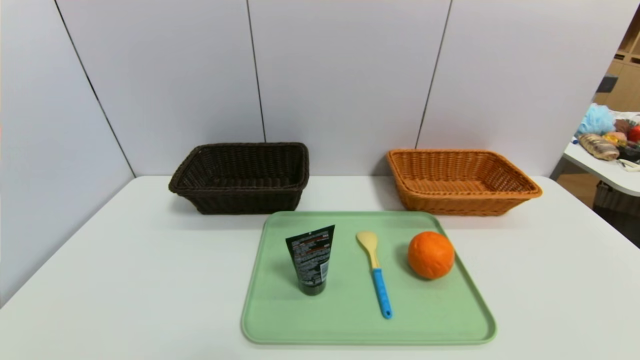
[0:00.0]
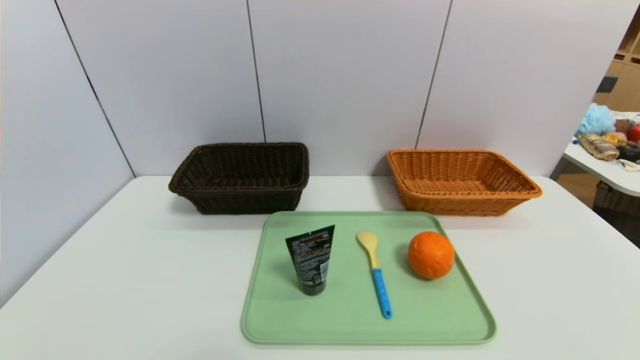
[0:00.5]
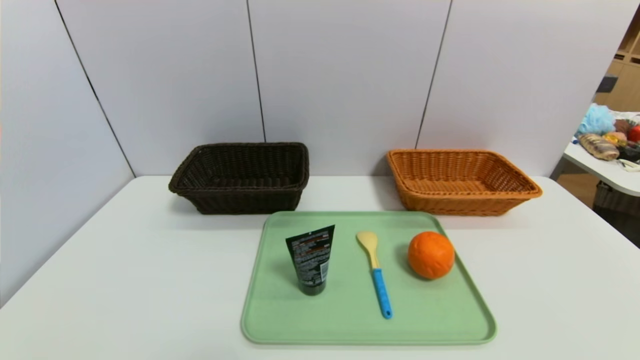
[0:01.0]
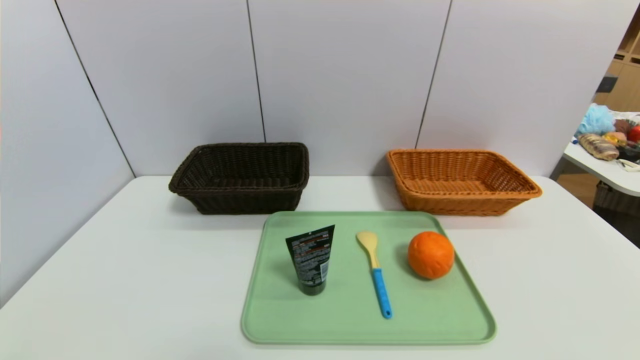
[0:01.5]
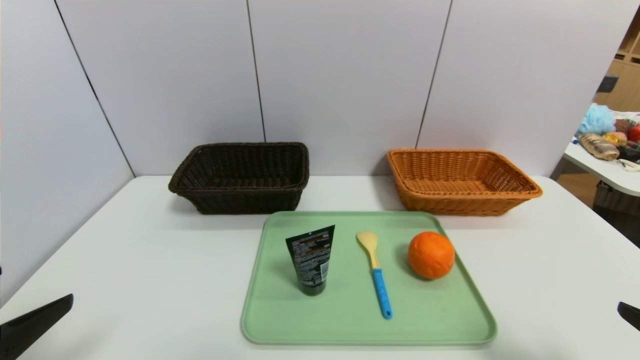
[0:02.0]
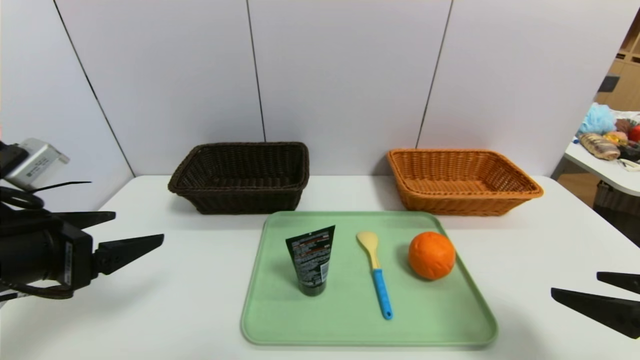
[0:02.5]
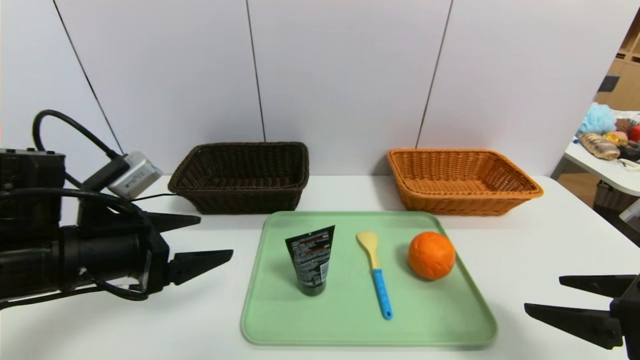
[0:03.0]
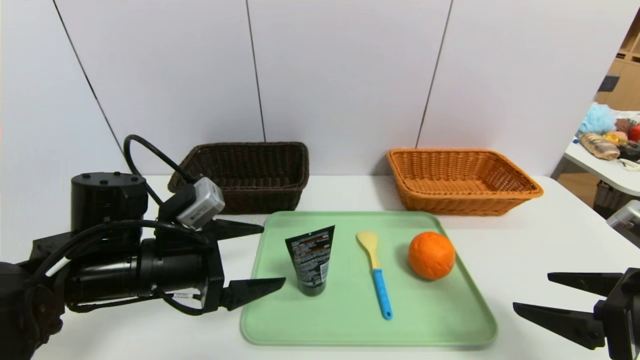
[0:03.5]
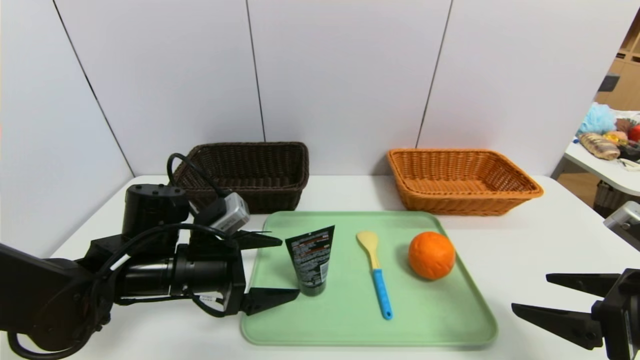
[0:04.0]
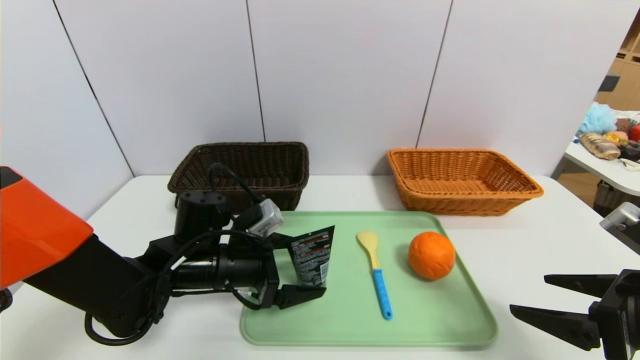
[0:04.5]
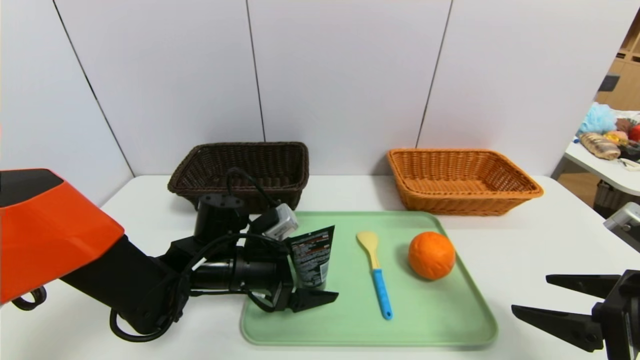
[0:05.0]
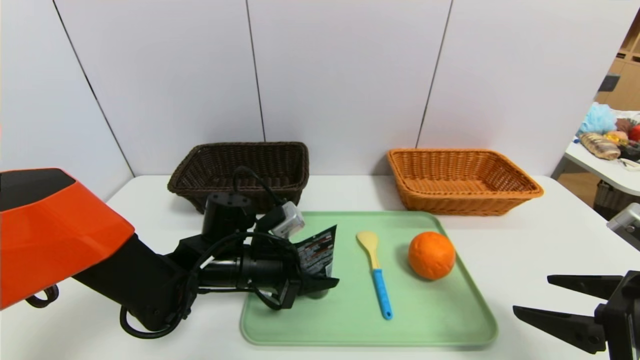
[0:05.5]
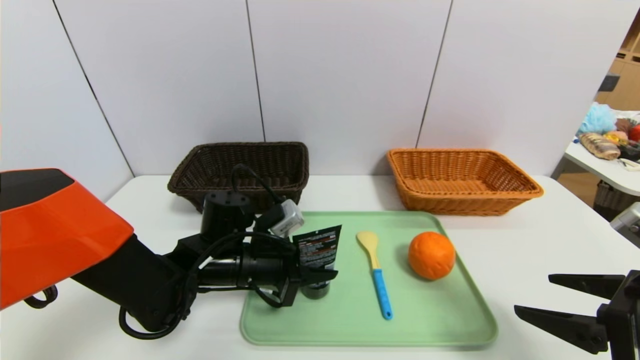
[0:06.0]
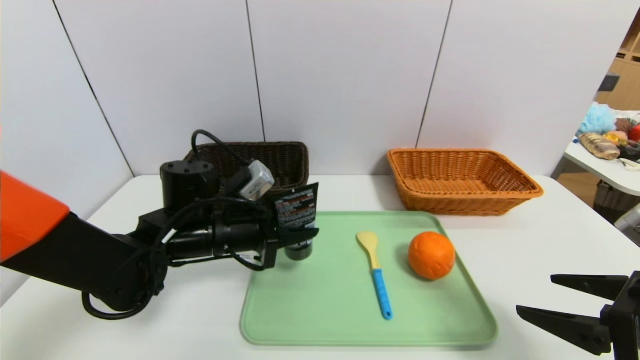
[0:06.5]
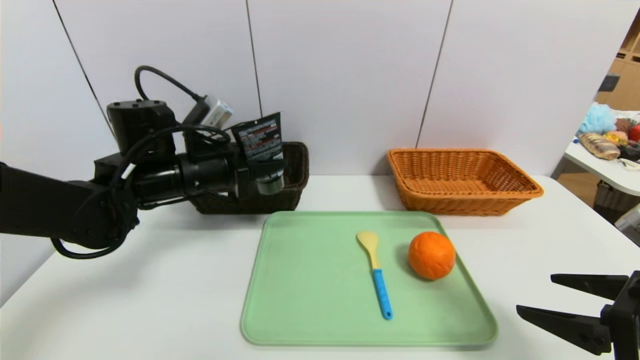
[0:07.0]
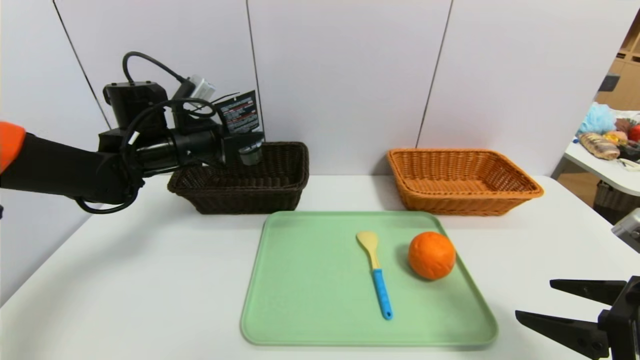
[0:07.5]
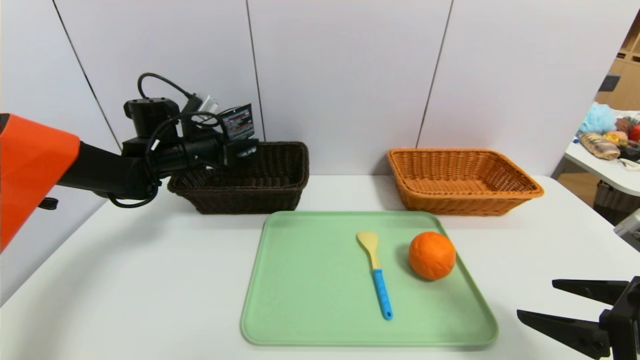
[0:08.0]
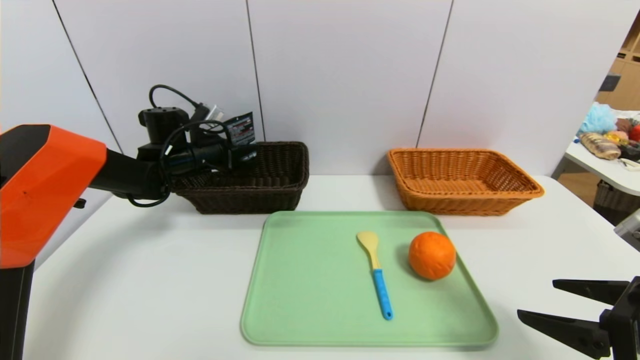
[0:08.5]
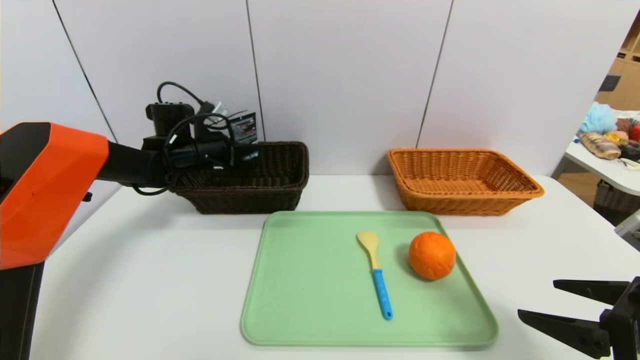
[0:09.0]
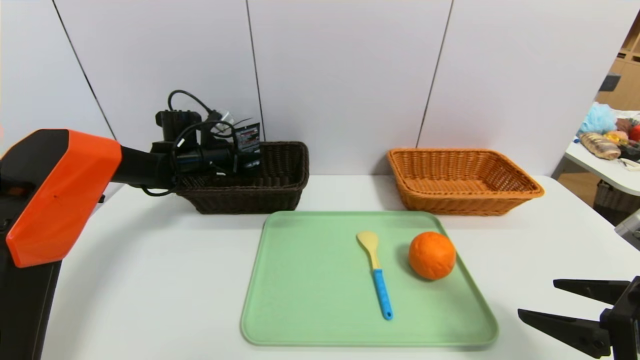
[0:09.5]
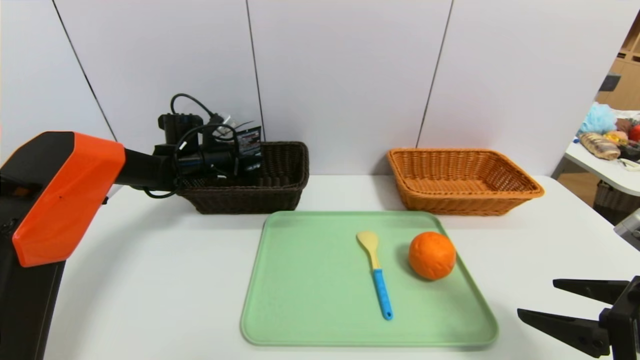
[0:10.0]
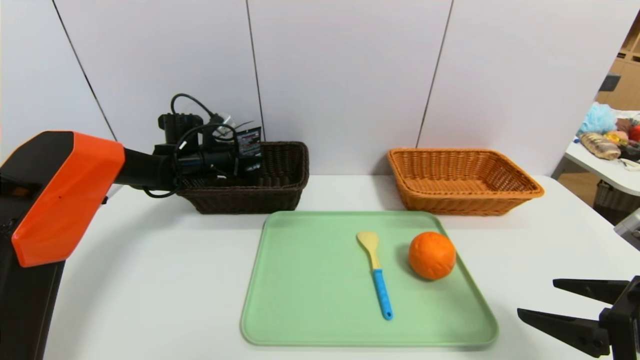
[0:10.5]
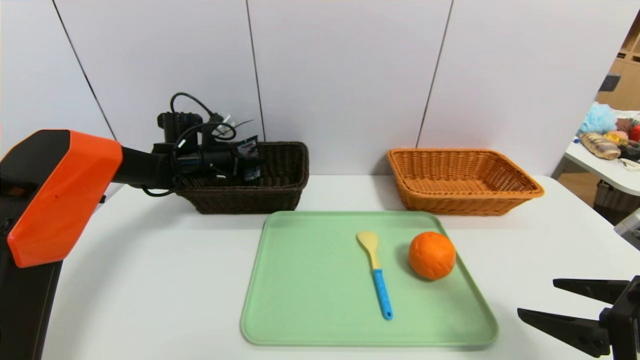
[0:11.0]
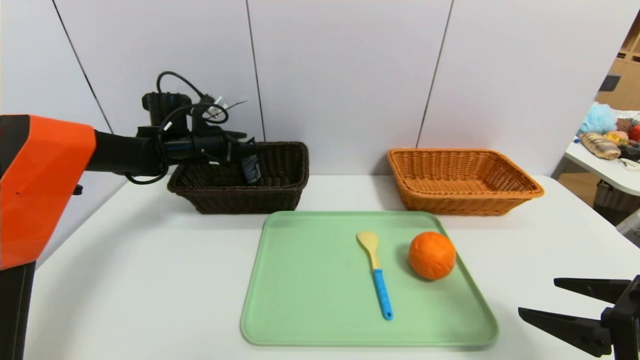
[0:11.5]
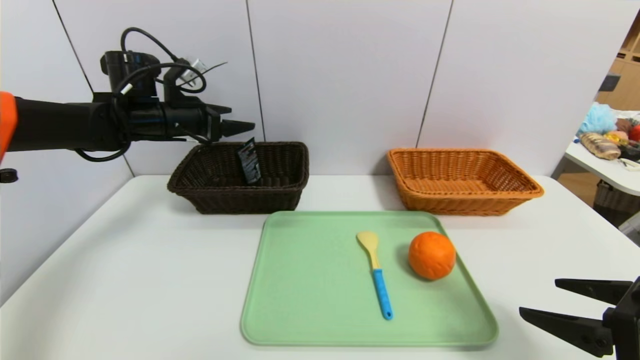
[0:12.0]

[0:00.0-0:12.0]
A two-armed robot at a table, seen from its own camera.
Task of the whole recording: place the food in the right basket with the right gripper, and place the non food items in the left basket with the left gripper.
Step, 0:00.0 to 0:11.0: Grasp the soft cleanser and put it in the left basket.
0:00.0 to 0:02.0: Both grippers move upward and forward, roughly 15 cm.
0:02.0 to 0:04.0: The right gripper is displaced forward by some 10 cm, while the left gripper heads forward, to the right and downward, covering some 25 cm.
0:04.0 to 0:06.0: The left gripper heads to the right, covering approximately 5 cm, and closes.
0:06.0 to 0:08.0: The left gripper goes about 20 cm forward, to the left and upward.
0:08.0 to 0:10.0: The left gripper moves forward, about 5 cm.
0:10.0 to 0:12.0: The left gripper goes roughly 15 cm upward and backward, and opens its fingers.

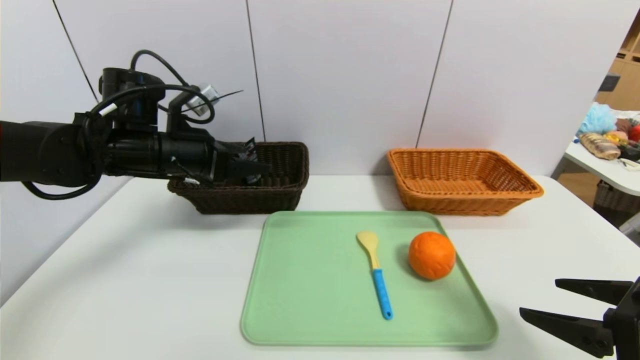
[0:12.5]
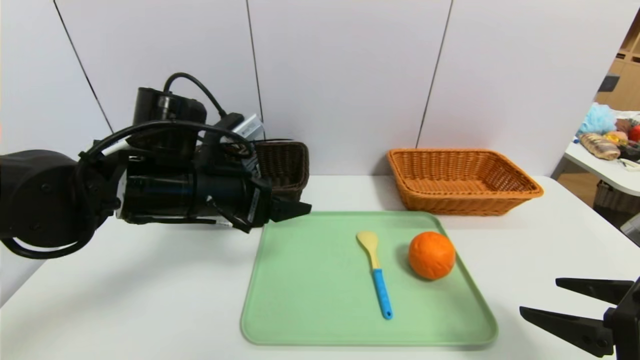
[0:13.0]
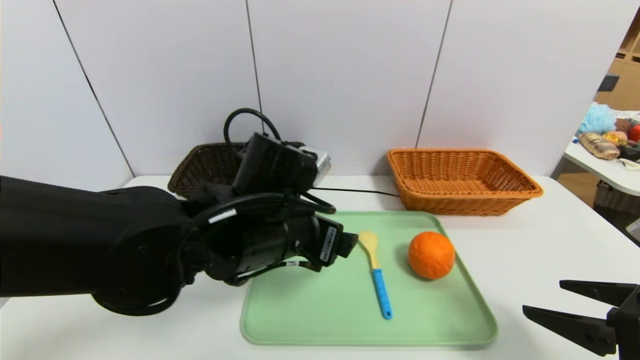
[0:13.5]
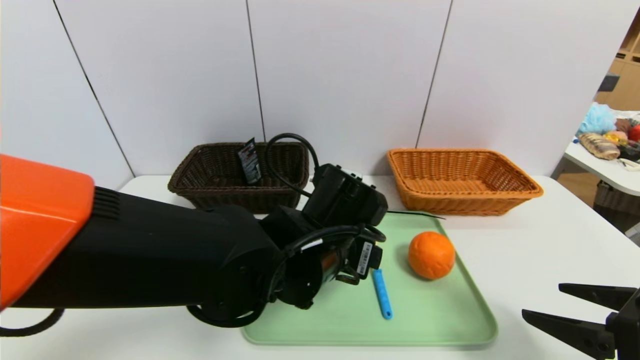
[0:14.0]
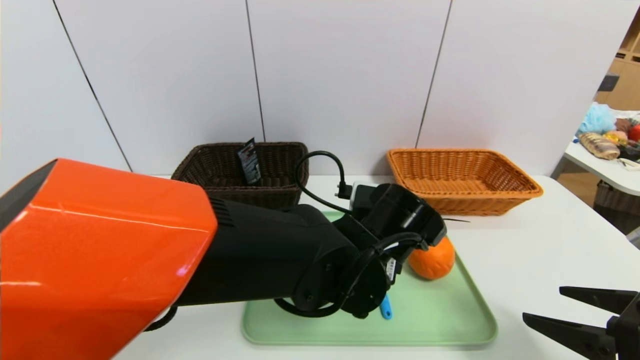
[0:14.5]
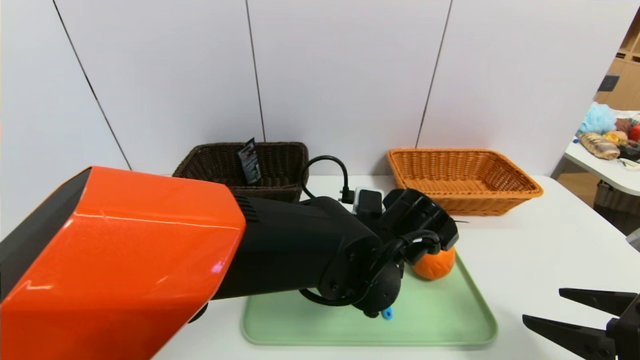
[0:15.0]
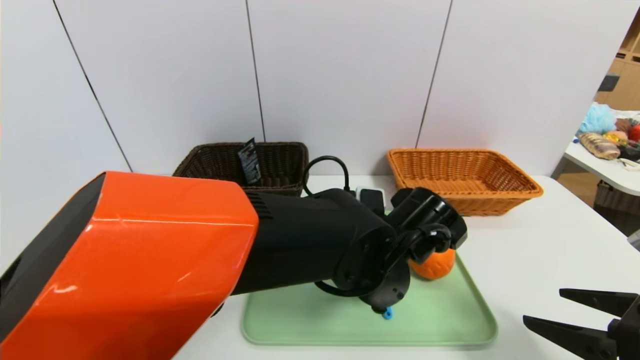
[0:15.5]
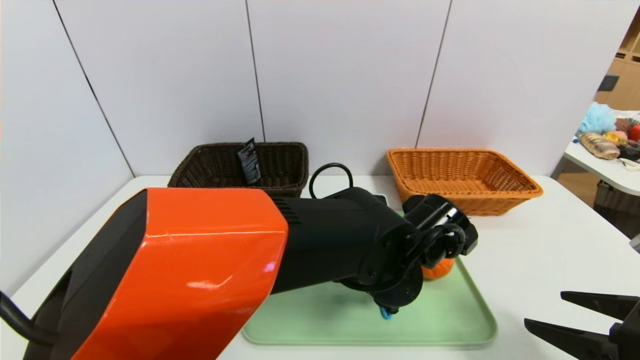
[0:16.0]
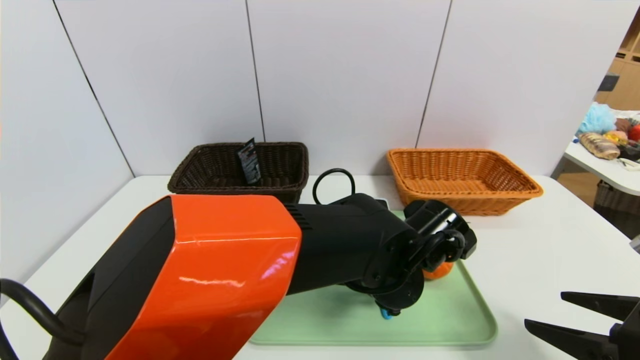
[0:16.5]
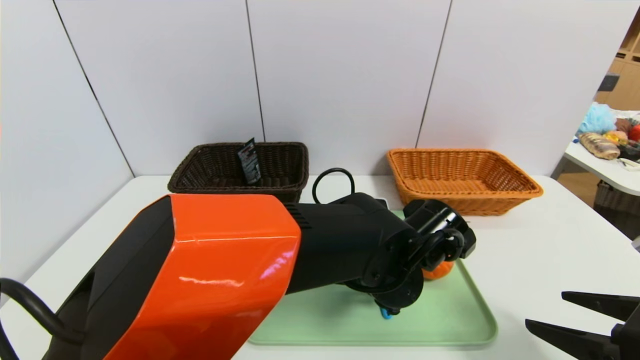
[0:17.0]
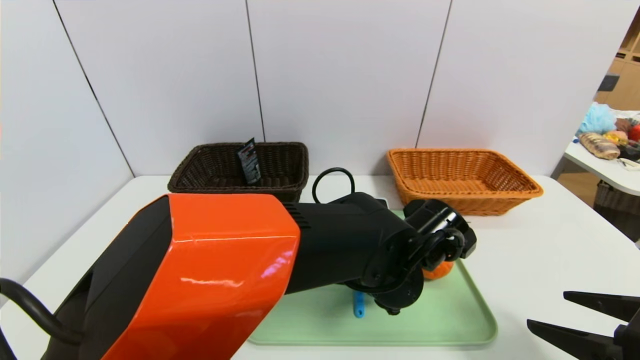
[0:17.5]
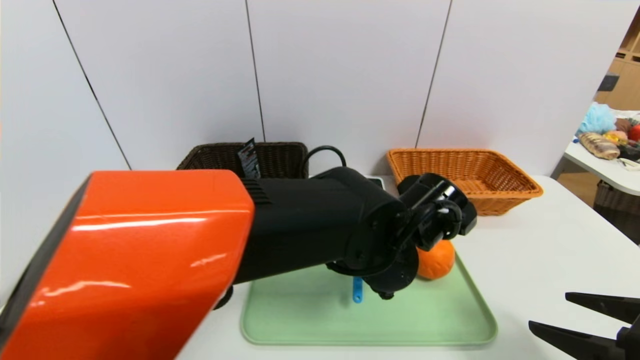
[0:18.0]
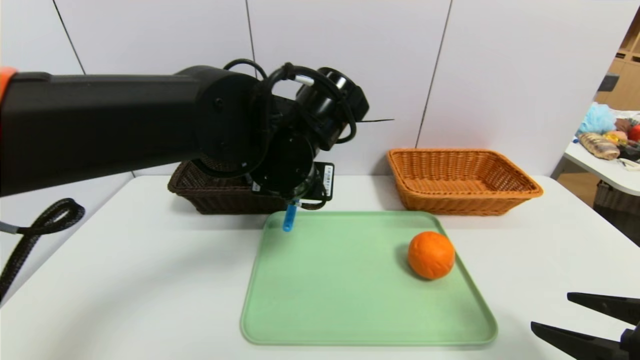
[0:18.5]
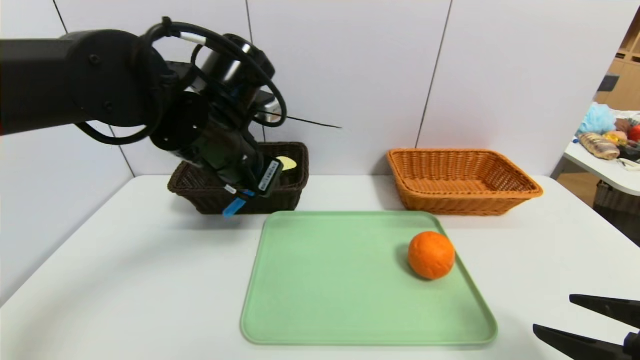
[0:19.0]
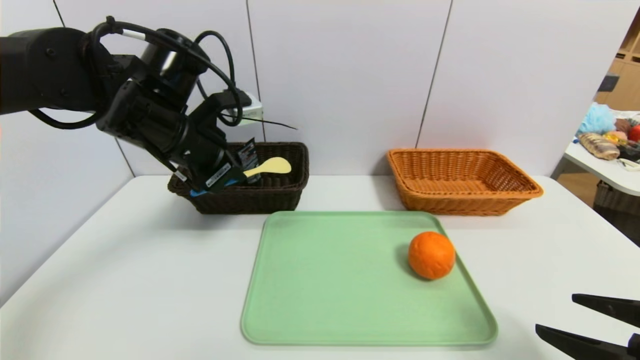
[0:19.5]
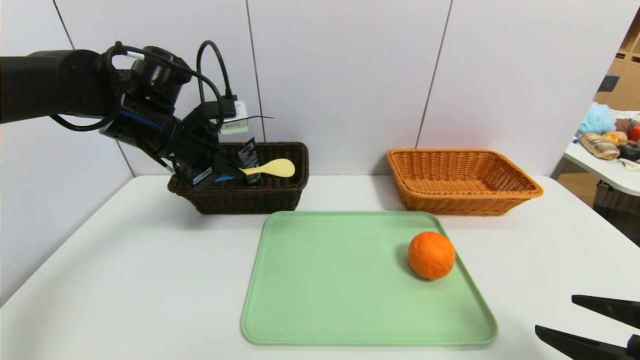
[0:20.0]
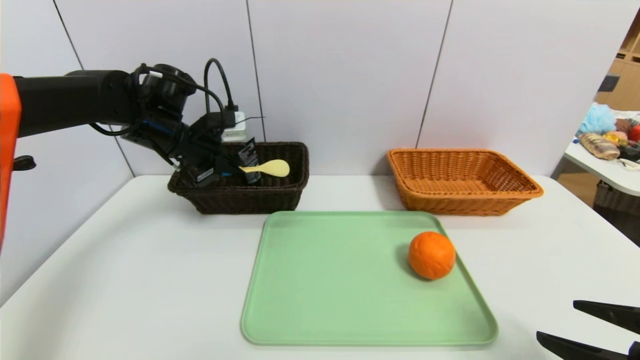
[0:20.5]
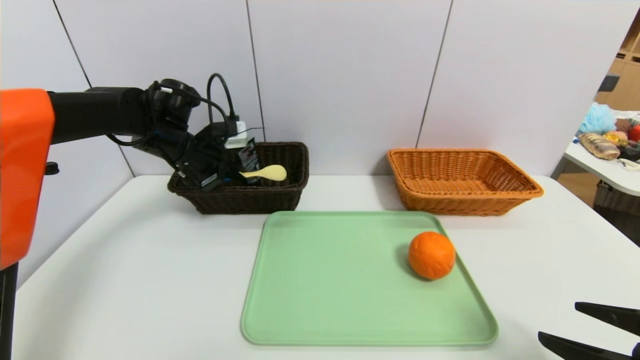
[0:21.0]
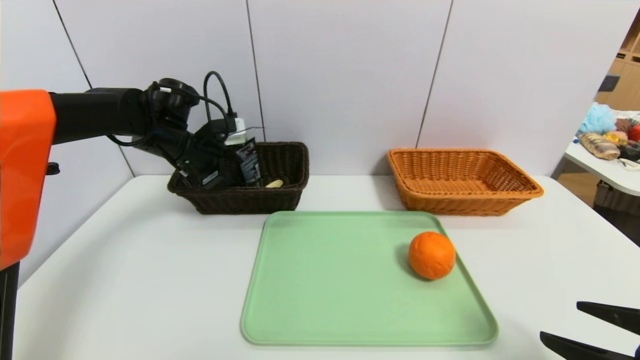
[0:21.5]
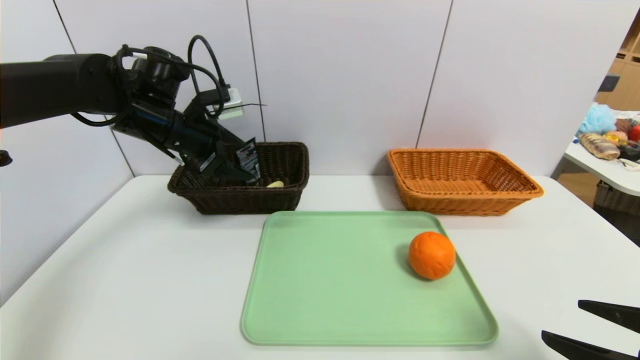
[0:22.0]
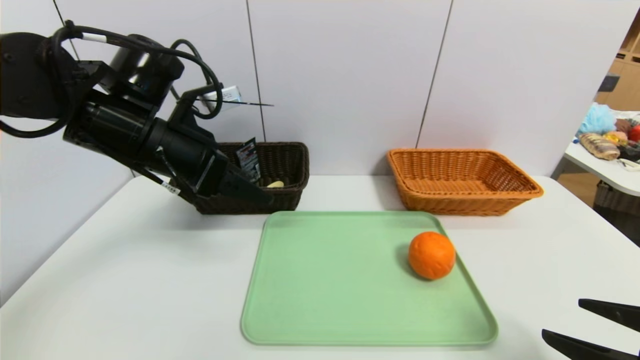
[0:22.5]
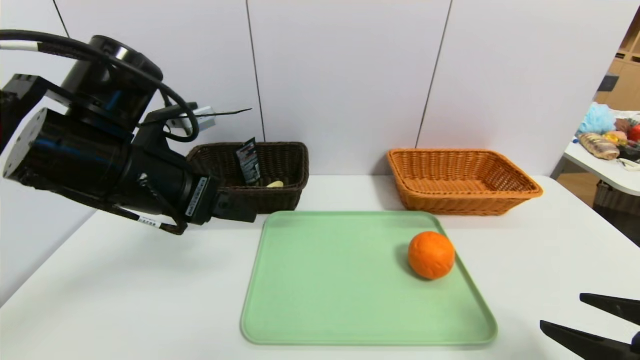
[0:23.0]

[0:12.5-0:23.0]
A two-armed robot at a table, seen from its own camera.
Task of the whole recording: place the food in the right basket with the right gripper, and place the non food items in the left basket with the left gripper.
Step, 0:12.5 to 0:21.5: Grasp the spoon and put it in the left basket.
0:12.5 to 0:14.5: The left gripper heads to the right, covering some 25 cm.
0:16.5 to 0:19.0: The left gripper shifts some 25 cm to the left and upward, and closes up.
0:19.0 to 0:21.0: The left gripper shifts roughly 20 cm forward, to the left and downward.
0:21.0 to 0:23.0: The left gripper travels backward by about 20 cm, and opens up.
